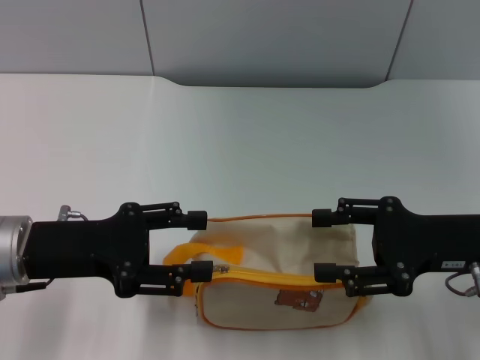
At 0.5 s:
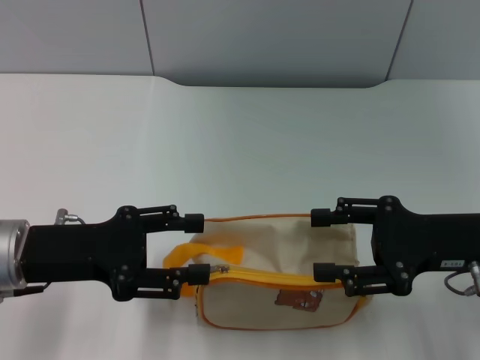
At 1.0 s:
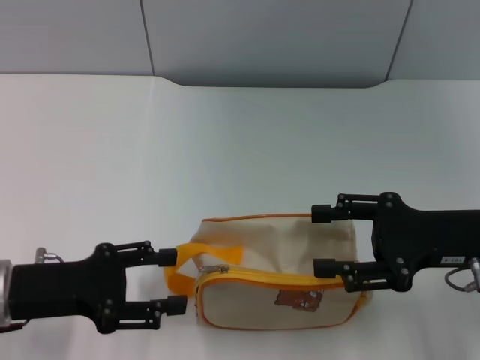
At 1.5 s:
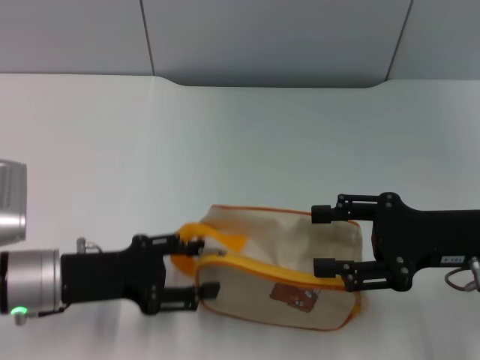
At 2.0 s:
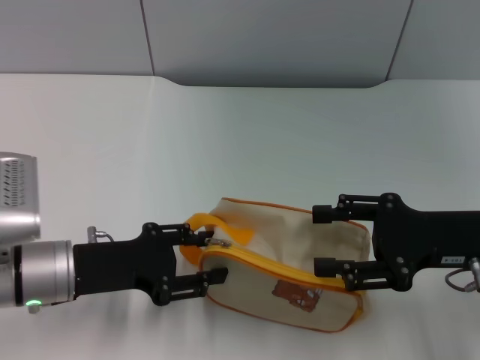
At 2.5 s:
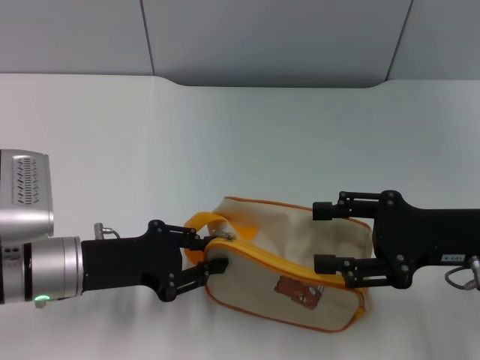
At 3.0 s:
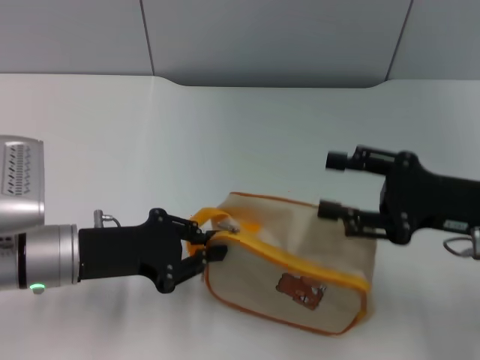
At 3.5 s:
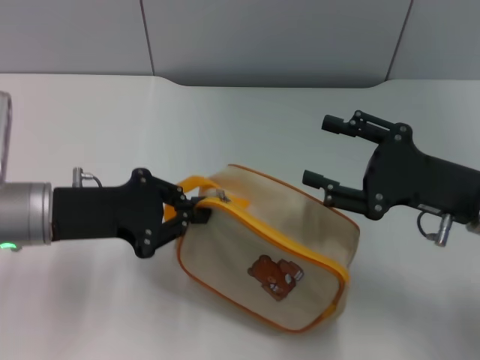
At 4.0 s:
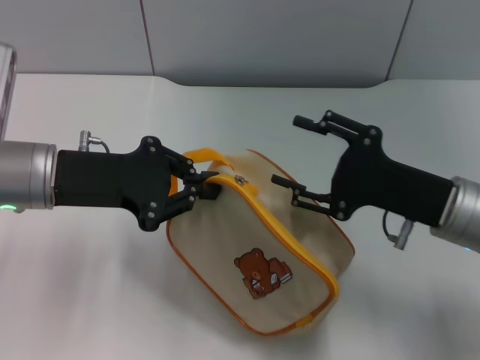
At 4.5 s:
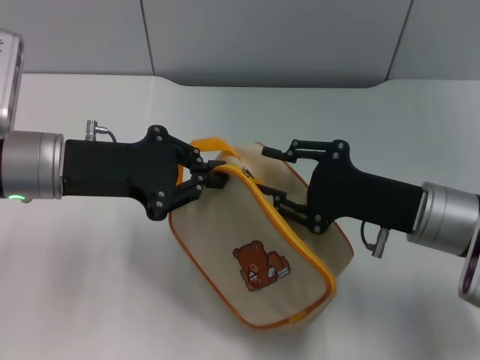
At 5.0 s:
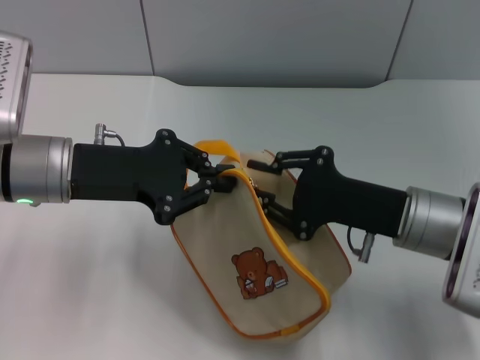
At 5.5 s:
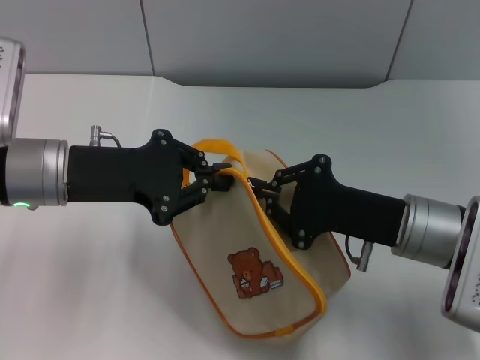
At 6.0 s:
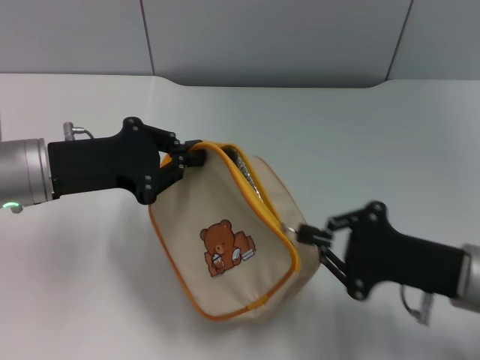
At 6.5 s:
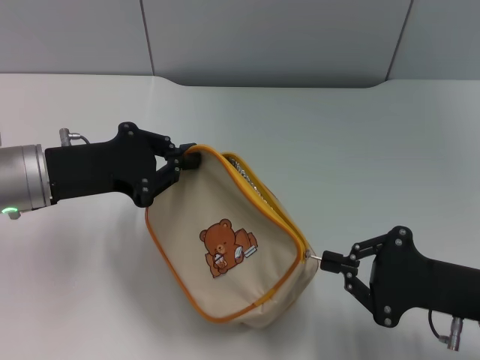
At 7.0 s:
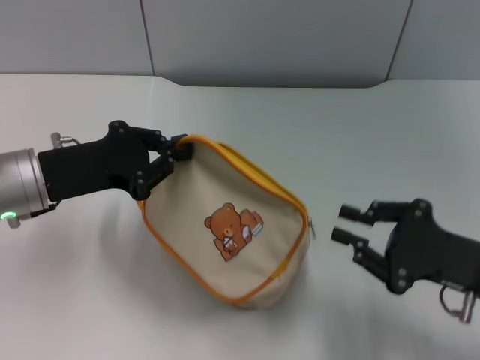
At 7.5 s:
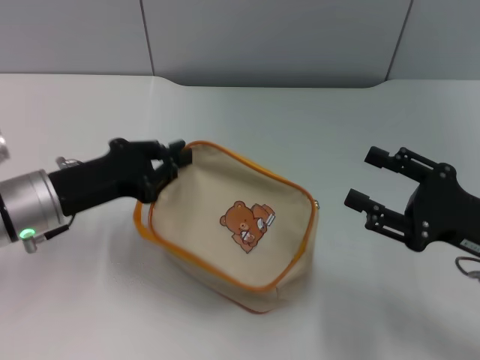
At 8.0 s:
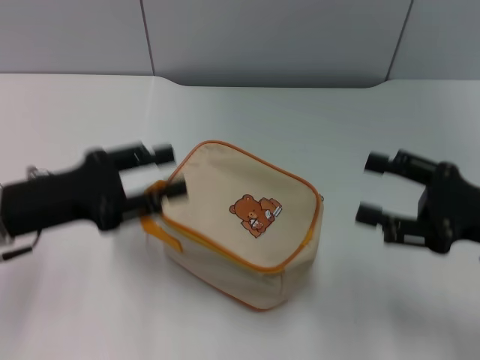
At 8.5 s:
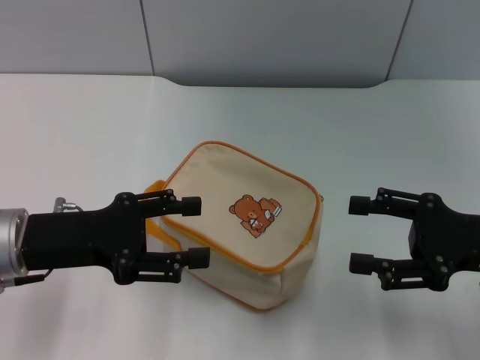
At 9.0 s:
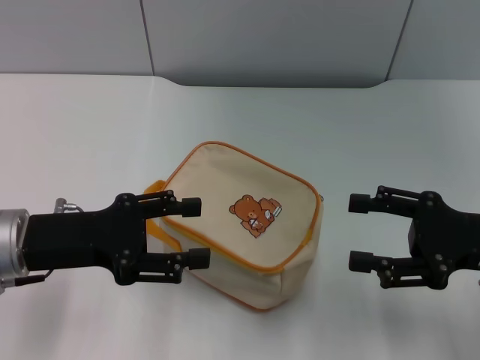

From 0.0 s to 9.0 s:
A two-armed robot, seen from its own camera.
Step, from 0.0 s to 3.5 s: Pick up the bag with left gripper.
Step, from 4.5 s to 6.5 s: Unzip the zipper of bag with right gripper.
From 0.0 s to 2.0 s: The left gripper moves some 5 cm.
From 2.0 s to 4.5 s: The left gripper is displaced upward and forward by roughly 10 cm, and closes, while the right gripper goes some 5 cm to the left.
From 4.5 s to 7.0 s: The right gripper shifts approximately 10 cm to the right and backward, and closes its fingers.
From 7.0 s to 9.0 s: The left gripper opens its fingers; the right gripper shifts by about 5 cm, and opens up.

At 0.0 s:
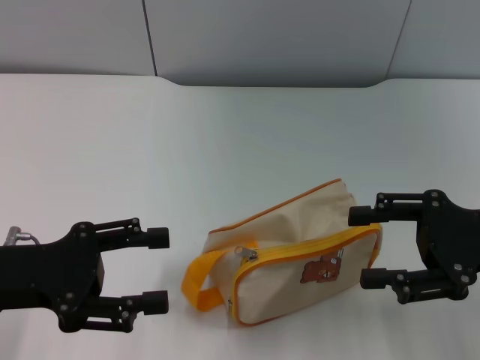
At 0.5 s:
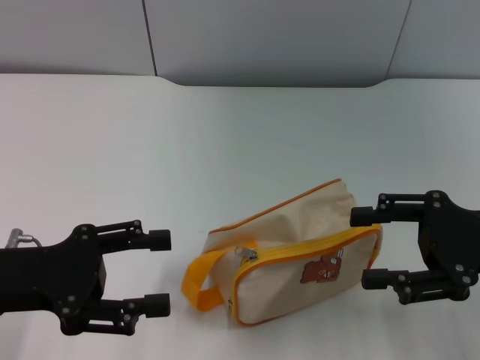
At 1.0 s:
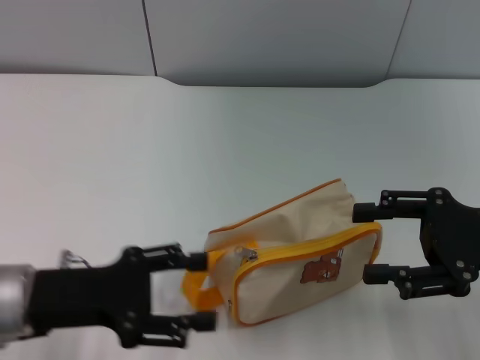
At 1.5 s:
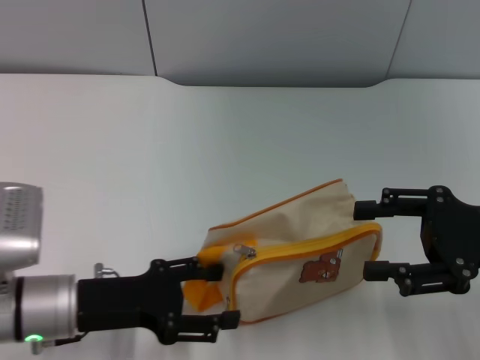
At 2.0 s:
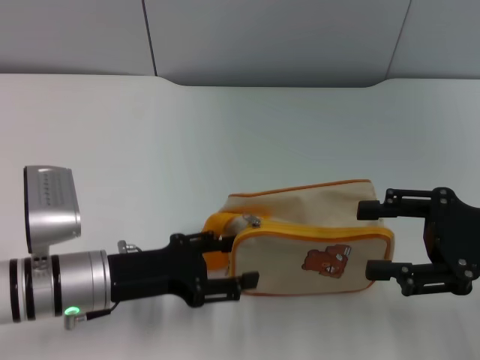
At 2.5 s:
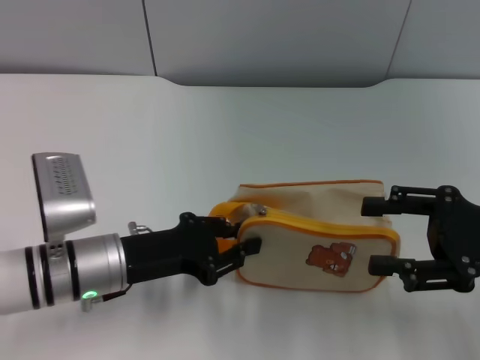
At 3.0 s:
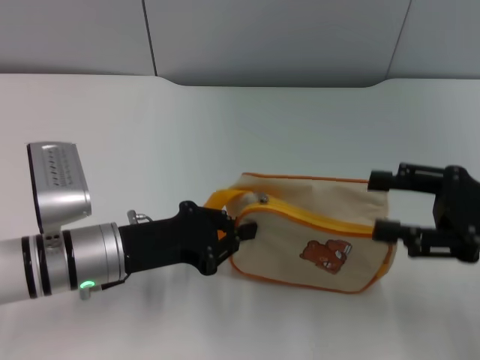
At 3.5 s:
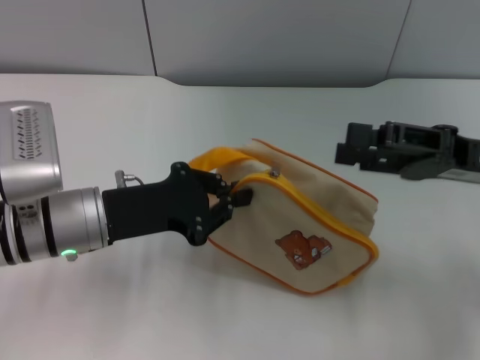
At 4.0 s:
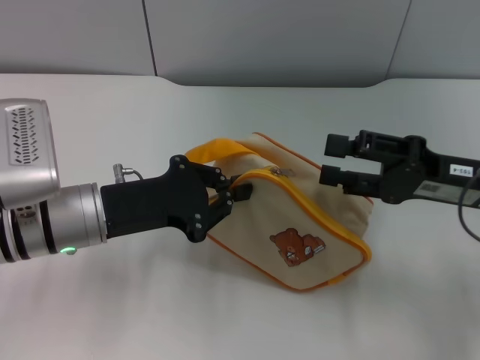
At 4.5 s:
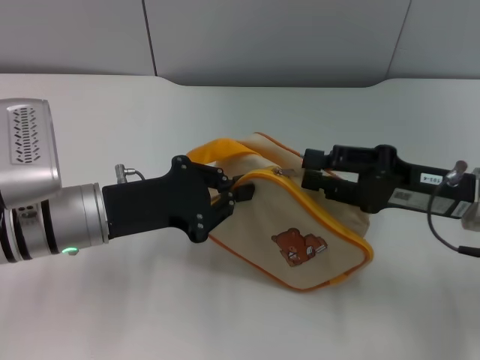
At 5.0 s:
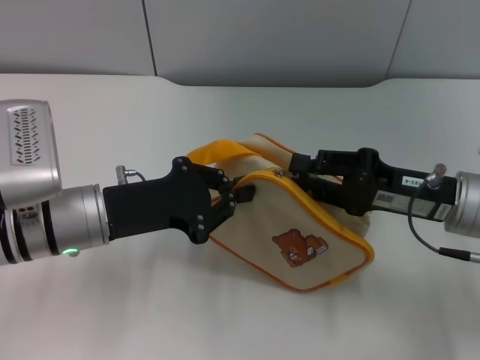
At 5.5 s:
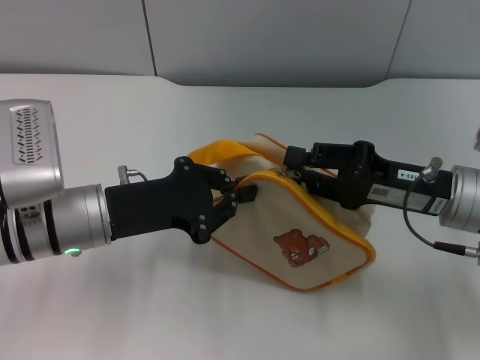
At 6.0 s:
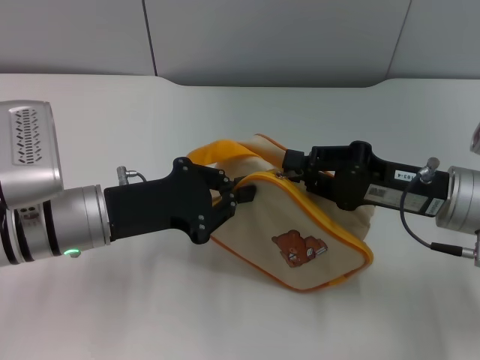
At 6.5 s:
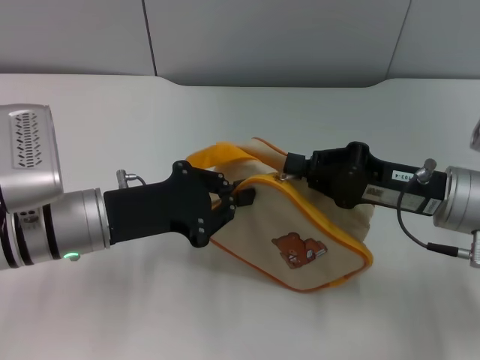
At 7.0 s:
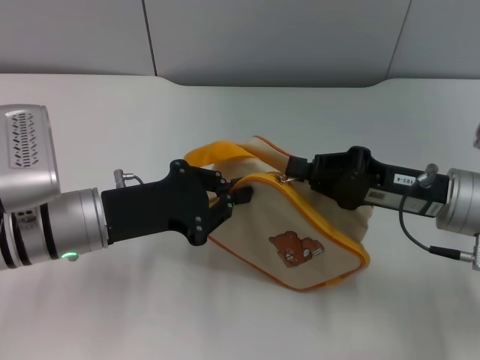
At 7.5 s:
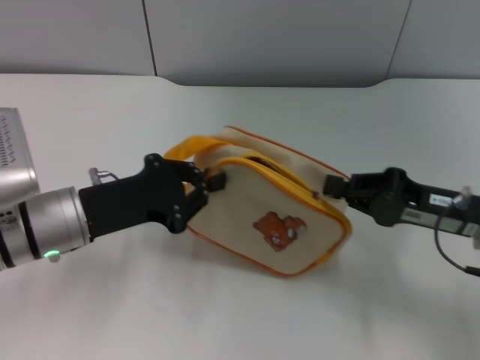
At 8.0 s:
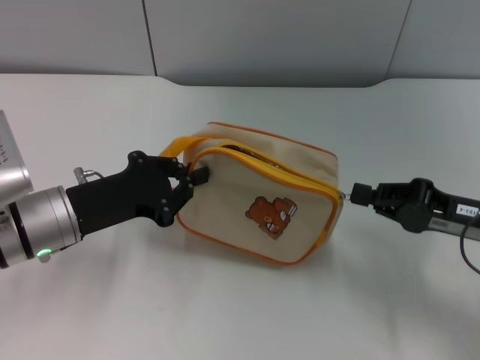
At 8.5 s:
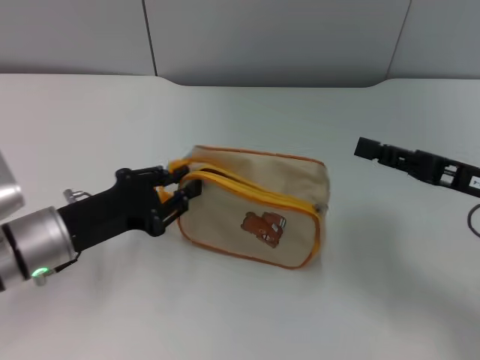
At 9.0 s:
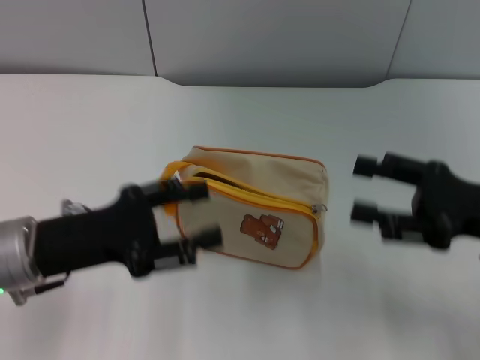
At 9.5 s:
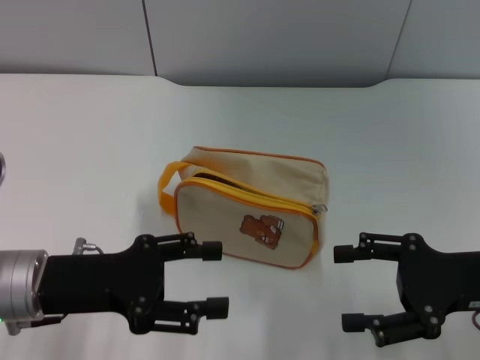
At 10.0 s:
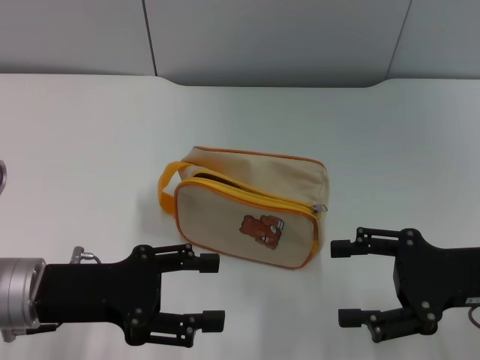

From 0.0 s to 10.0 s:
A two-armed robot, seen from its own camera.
Step, from 0.0 s to 3.0 s: Pick up the bag with left gripper.
Step, from 3.5 s to 8.0 s: Unzip the zipper of bag with right gripper.
From 0.0 s to 2.0 s: The left gripper is displaced to the right and downward by some 10 cm.
From 2.0 s to 4.0 s: The left gripper ends up some 5 cm from where it was, and closes its fingers.
From 4.0 s to 6.0 s: The right gripper closes its fingers.
From 6.0 s to 8.0 s: The right gripper heads to the right, covering approximately 5 cm.
From 8.0 s to 10.0 s: The left gripper shifts approximately 5 cm backward, and opens up. The right gripper opens.

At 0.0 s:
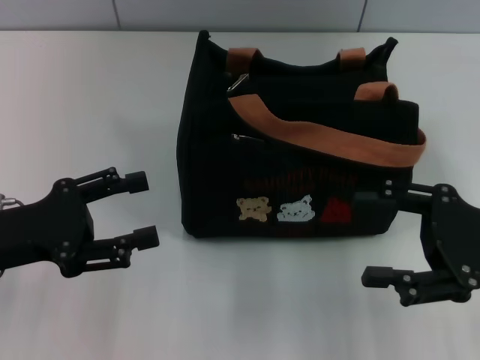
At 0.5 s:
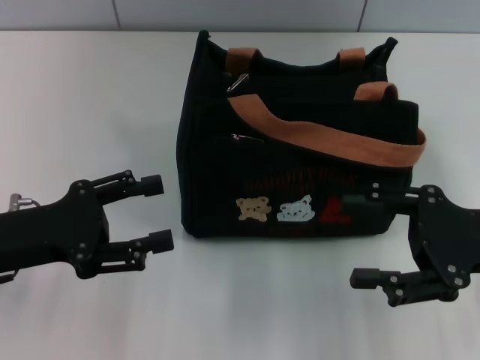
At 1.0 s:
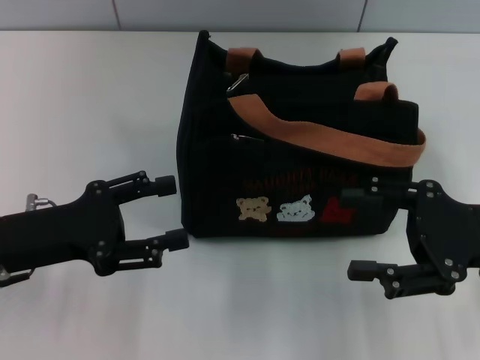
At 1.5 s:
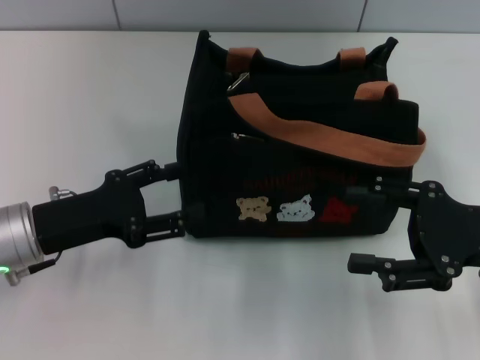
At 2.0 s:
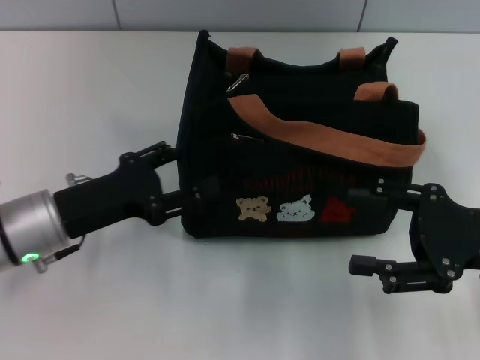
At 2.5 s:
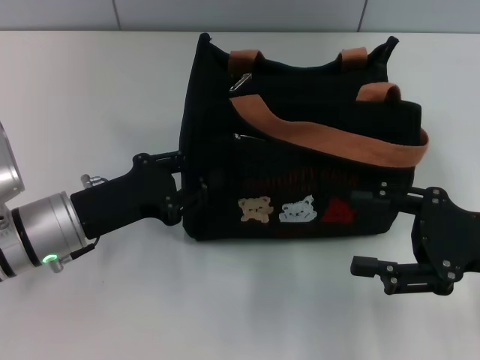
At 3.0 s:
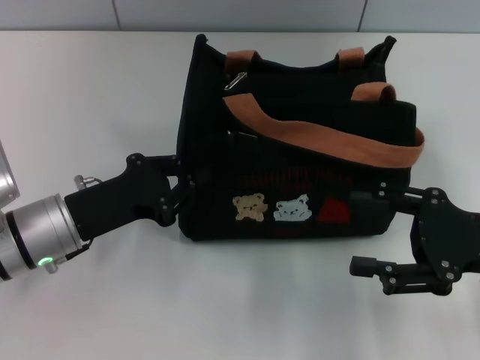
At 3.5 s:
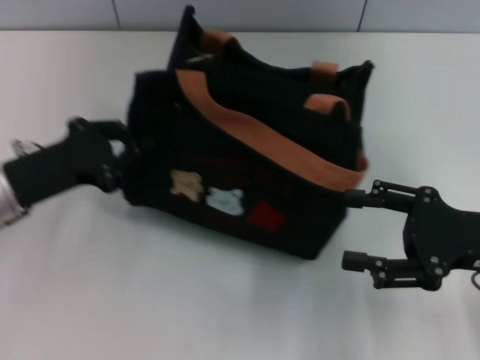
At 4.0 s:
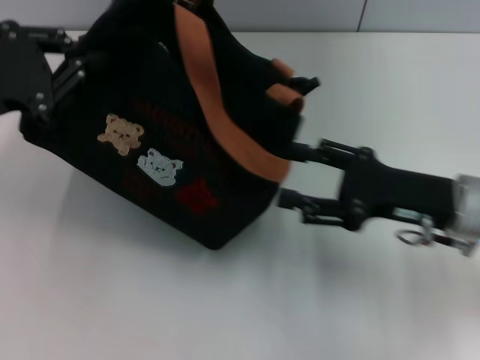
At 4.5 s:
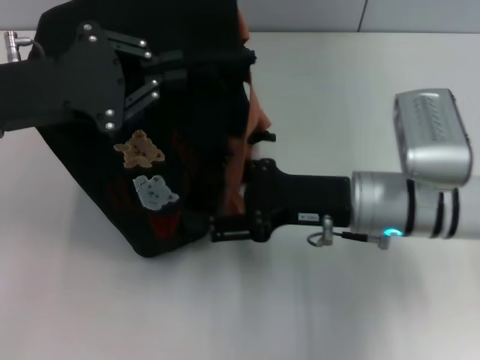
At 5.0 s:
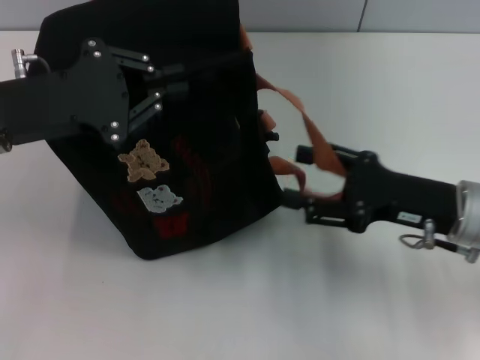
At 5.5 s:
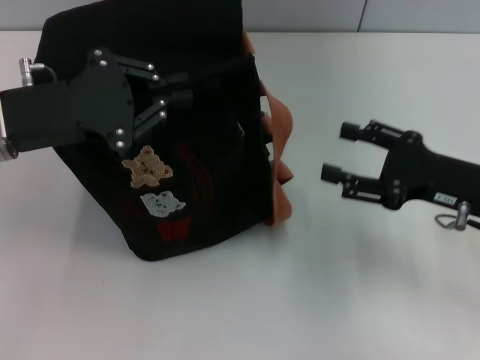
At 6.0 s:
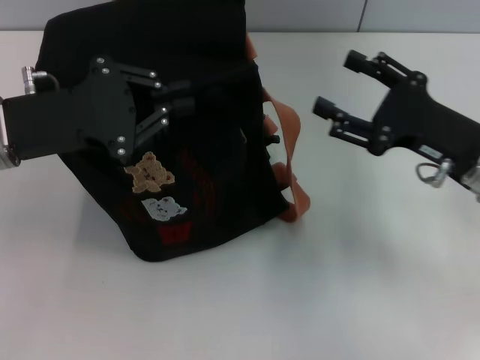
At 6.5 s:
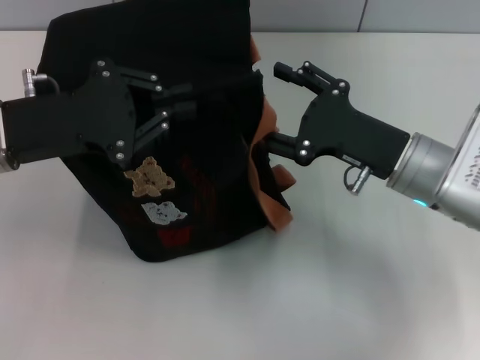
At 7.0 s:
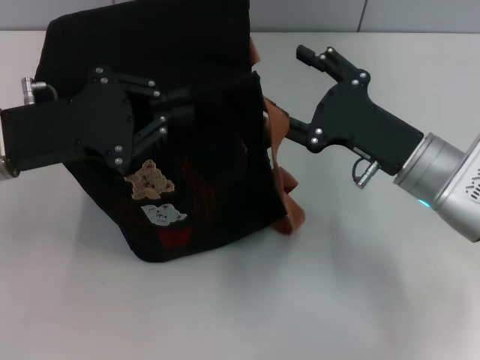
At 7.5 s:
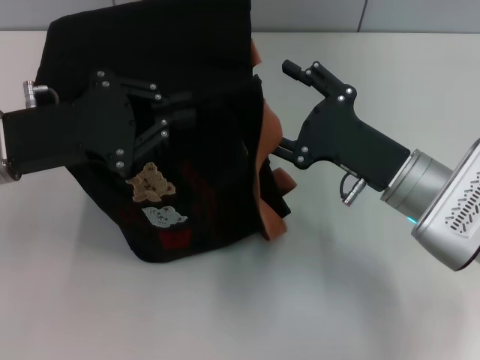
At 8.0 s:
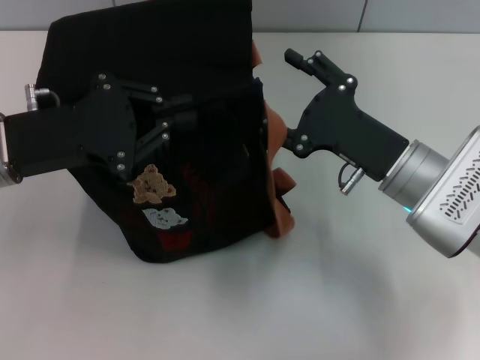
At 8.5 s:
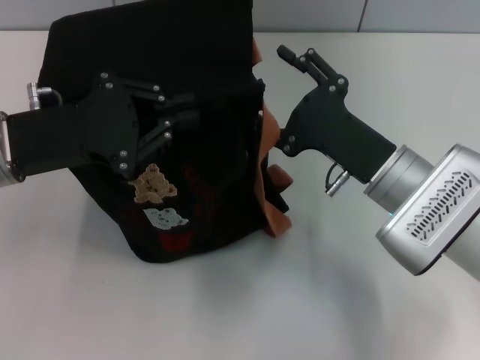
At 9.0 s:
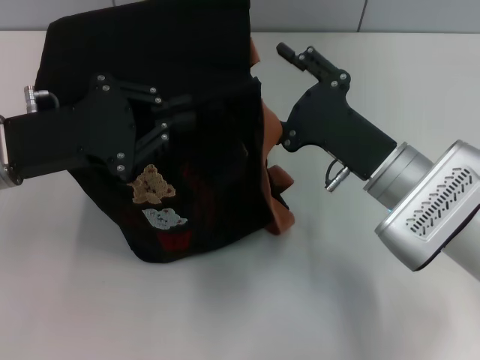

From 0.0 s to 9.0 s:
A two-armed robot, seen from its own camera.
From 0.0 s to 2.0 s: The left gripper goes some 5 cm to the right.
From 2.0 s to 4.5 s: The right gripper is displaced to the left by about 15 cm, while the left gripper shifts some 10 cm upward, and closes up.
From 7.0 s to 9.0 s: There are only small adjustments of the grippers.
